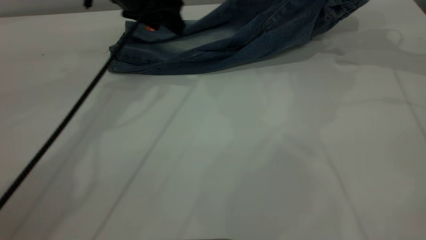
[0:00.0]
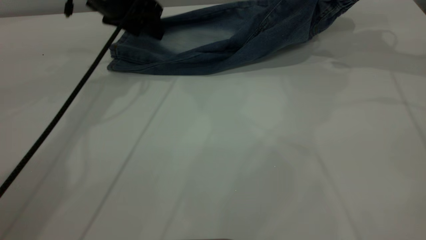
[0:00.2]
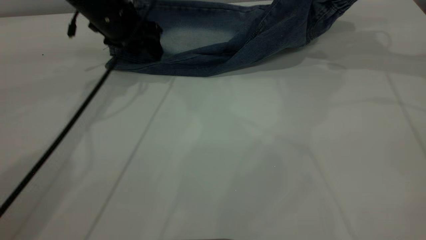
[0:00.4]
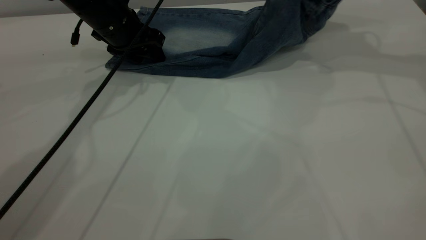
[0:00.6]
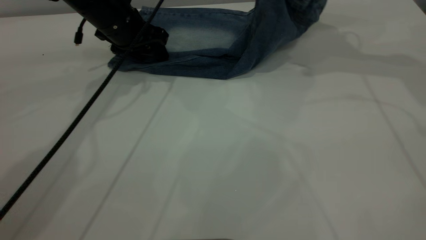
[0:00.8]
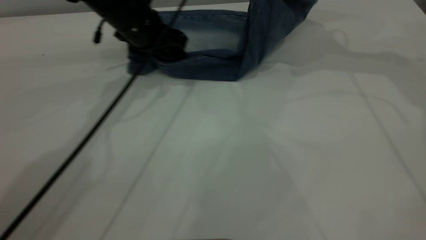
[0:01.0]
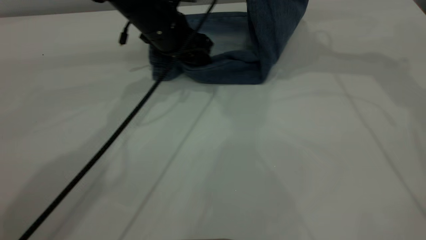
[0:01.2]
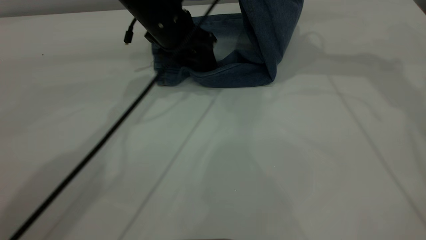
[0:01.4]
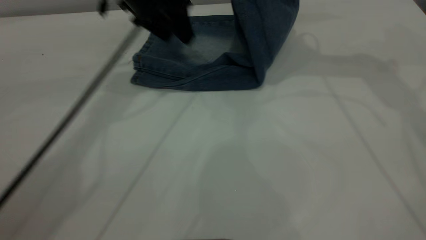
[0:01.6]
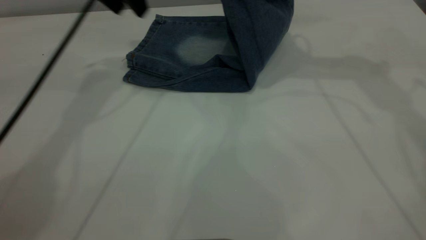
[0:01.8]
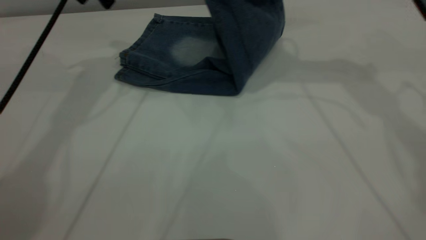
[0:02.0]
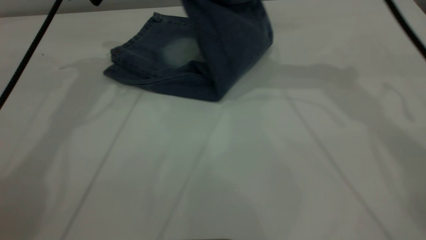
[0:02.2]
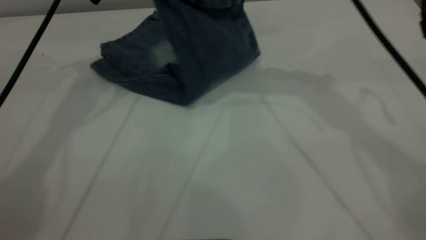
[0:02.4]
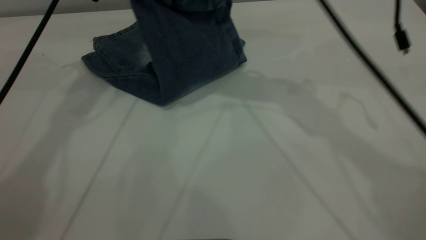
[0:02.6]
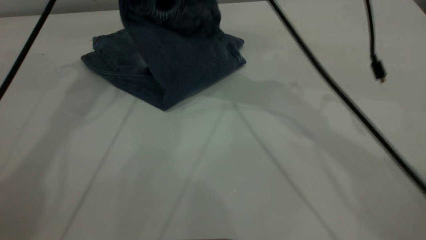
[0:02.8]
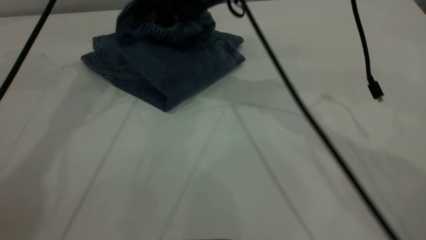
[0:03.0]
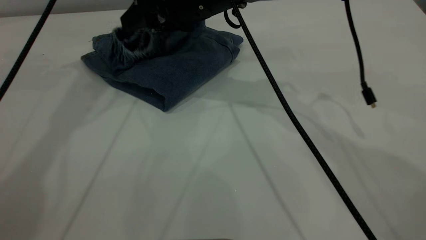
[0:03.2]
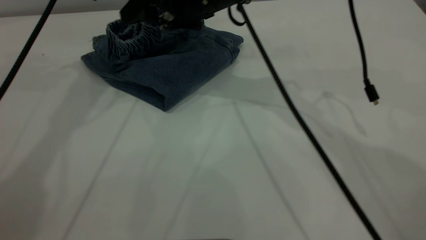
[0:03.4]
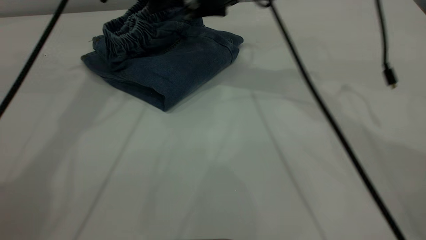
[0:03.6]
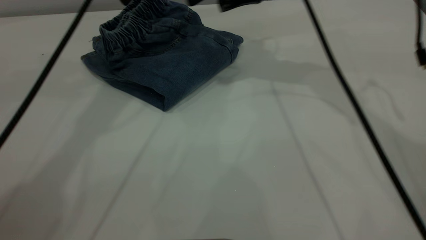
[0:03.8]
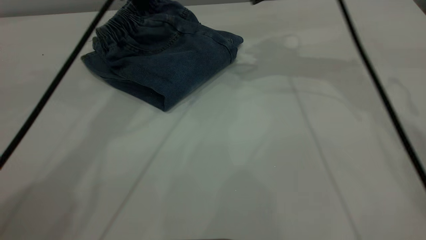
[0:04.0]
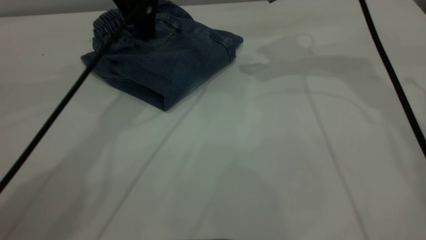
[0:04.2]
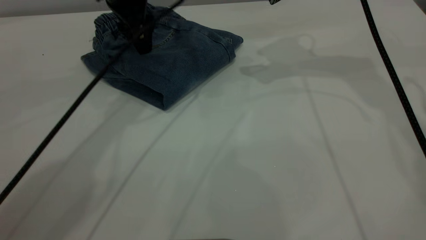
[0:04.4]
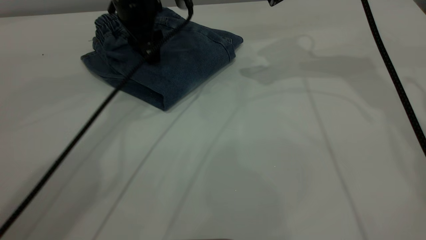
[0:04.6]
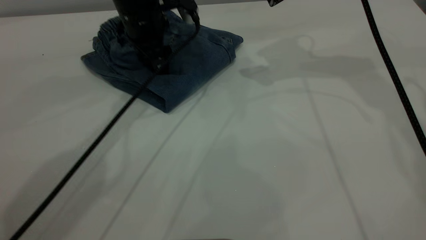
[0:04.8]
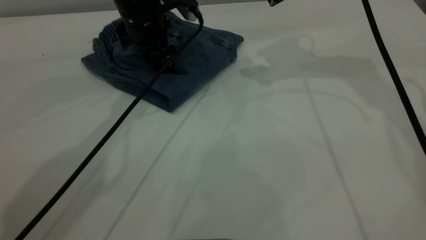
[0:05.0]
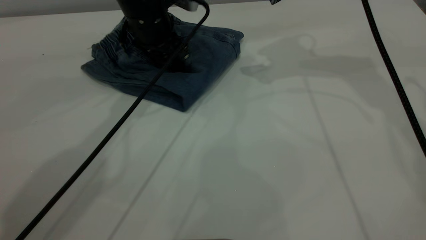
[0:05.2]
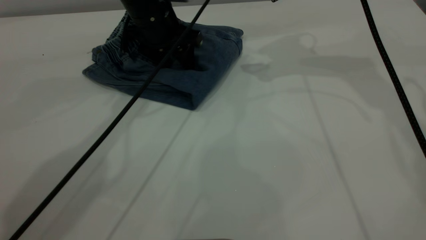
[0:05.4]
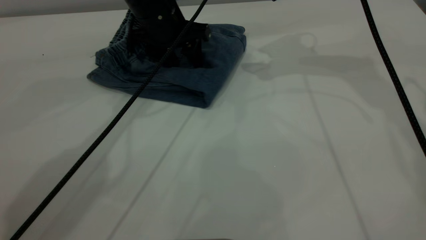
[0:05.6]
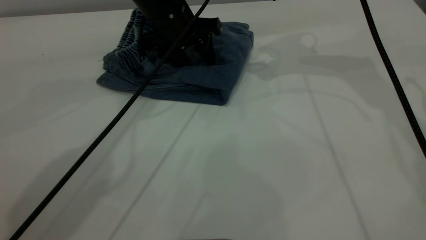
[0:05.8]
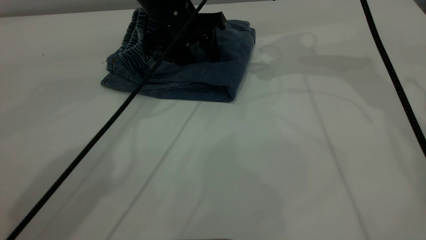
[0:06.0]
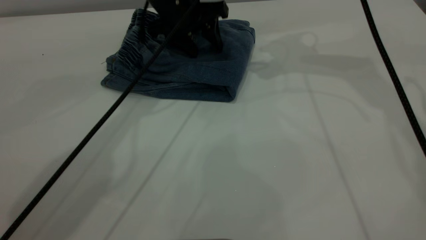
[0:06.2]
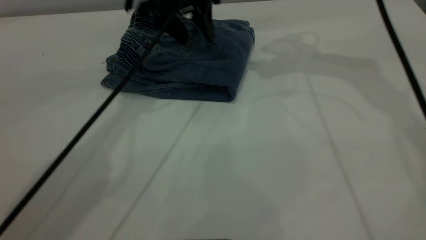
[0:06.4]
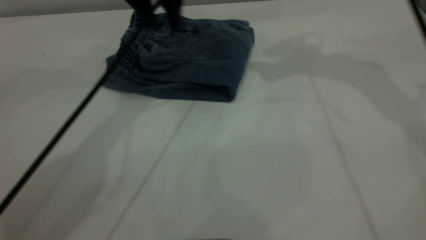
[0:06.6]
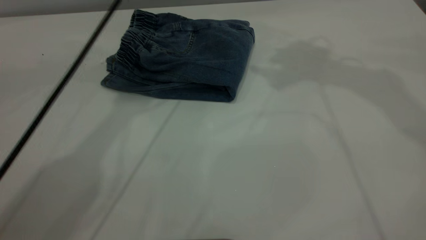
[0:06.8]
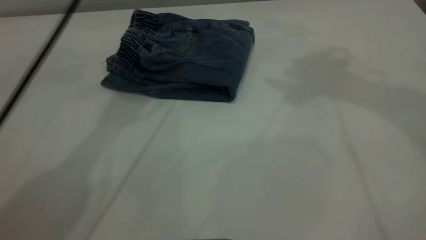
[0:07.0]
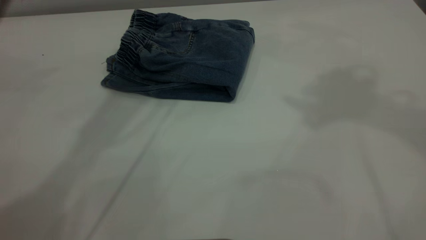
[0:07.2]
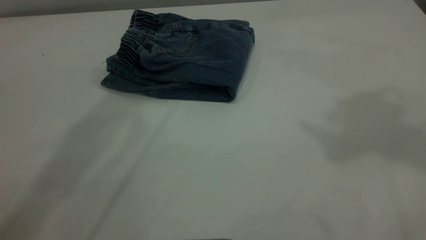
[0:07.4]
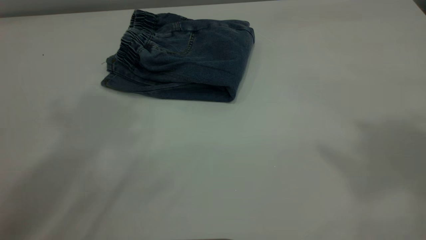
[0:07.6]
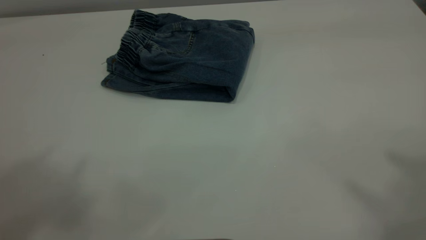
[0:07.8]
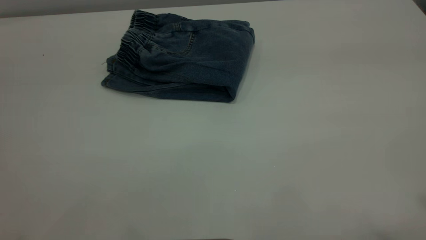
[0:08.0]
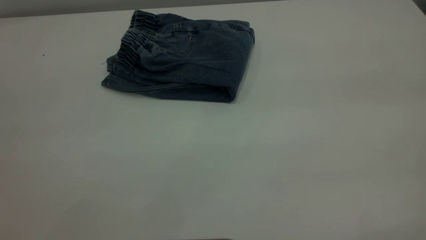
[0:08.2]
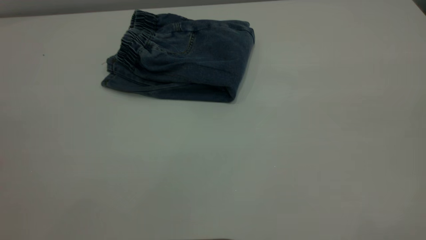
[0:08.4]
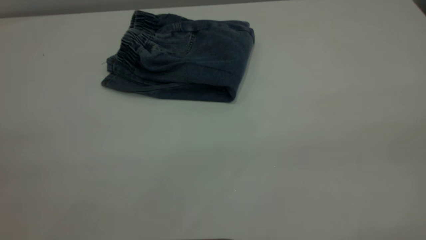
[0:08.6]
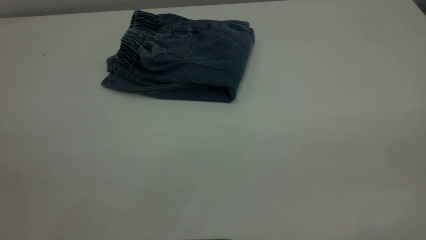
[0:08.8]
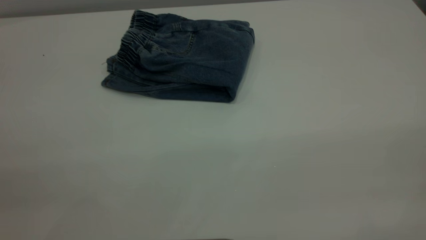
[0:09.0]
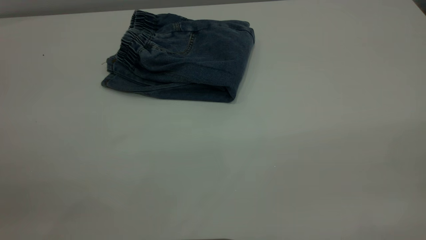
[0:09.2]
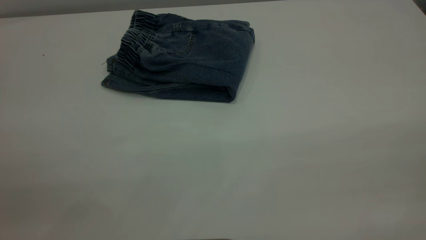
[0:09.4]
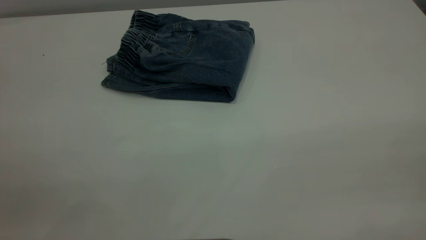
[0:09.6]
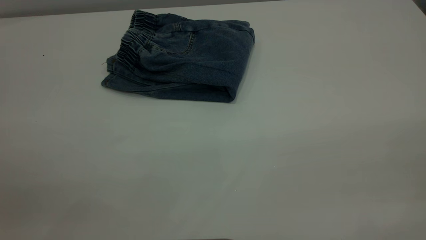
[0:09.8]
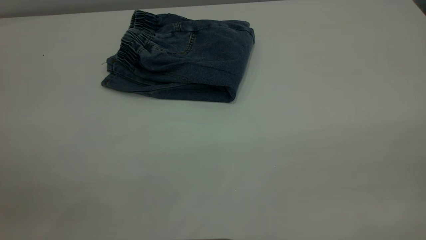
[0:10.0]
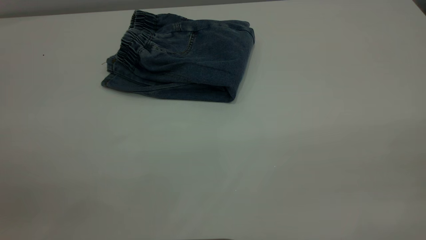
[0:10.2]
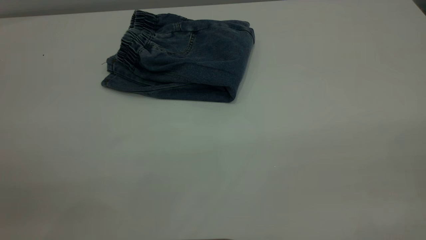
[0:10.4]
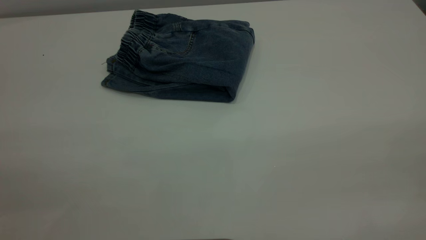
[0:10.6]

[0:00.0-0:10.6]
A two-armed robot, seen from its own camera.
Step, 0:00.0 to 0:03.8: Fold your pants from right to left.
0:00.0 to 0:01.6: The right gripper shifts about 15 cm to the left, while the left gripper moves approximately 5 cm to the right and comes back.
0:01.6 to 0:03.0: The right gripper is displaced to the left and downward by approximately 20 cm. Meanwhile the left gripper is displaced upward and to the left by approximately 10 cm.
0:03.0 to 0:04.6: The left gripper goes roughly 15 cm downward and to the right. Meanwhile the right gripper heads to the right, covering some 15 cm, and opens up.
0:06.0 to 0:07.6: Both grippers move upward and backward, approximately 40 cm.
